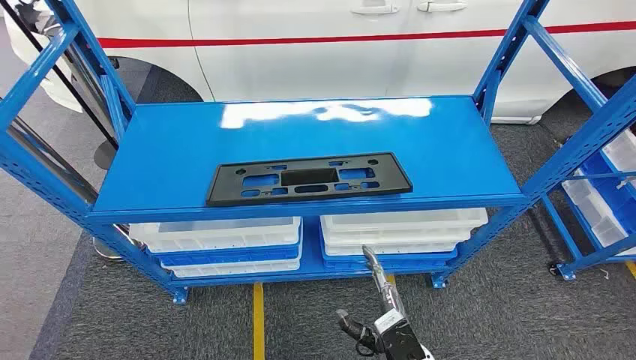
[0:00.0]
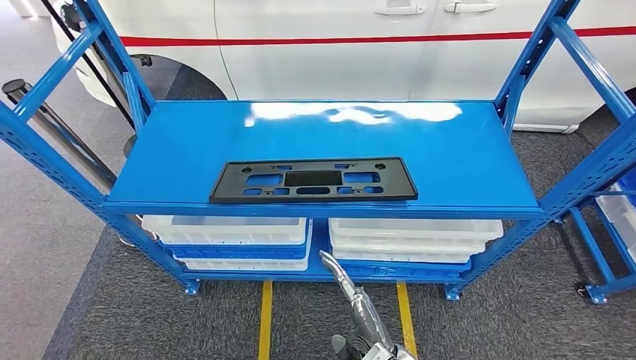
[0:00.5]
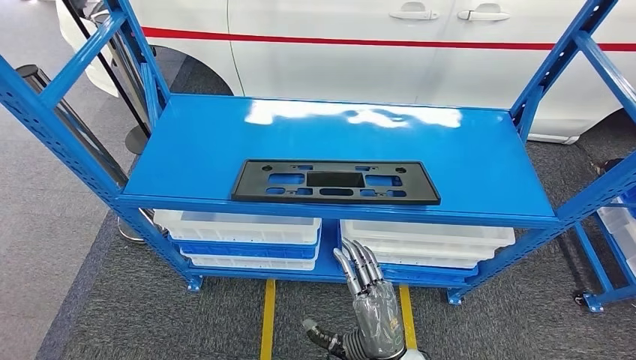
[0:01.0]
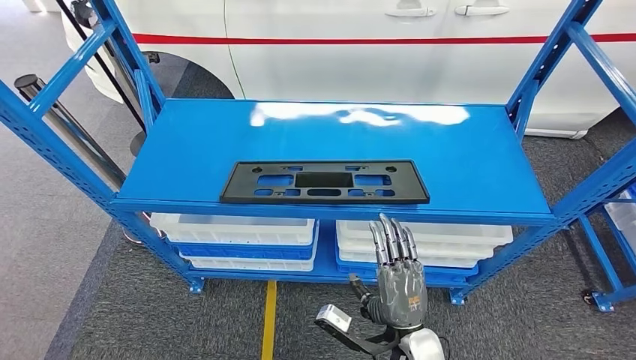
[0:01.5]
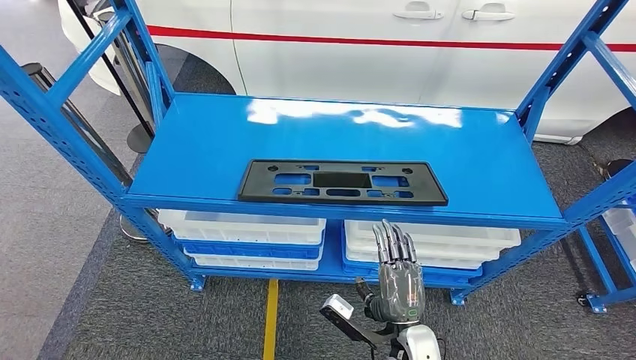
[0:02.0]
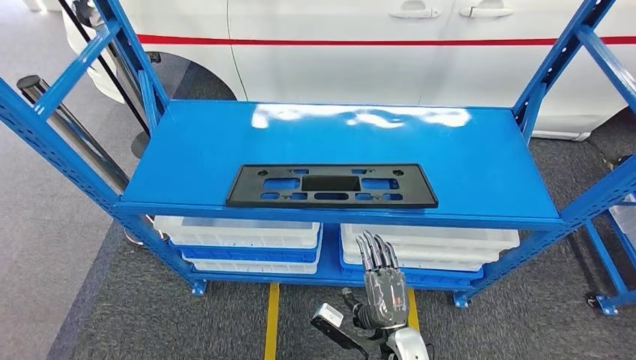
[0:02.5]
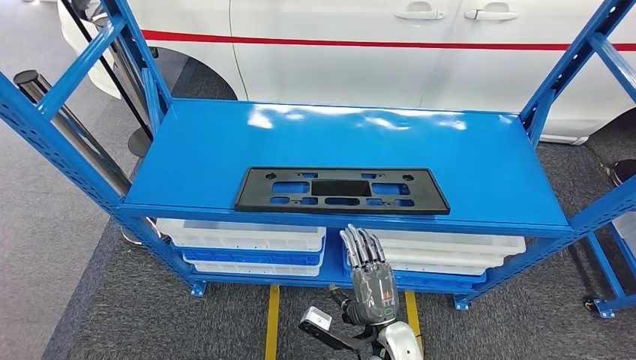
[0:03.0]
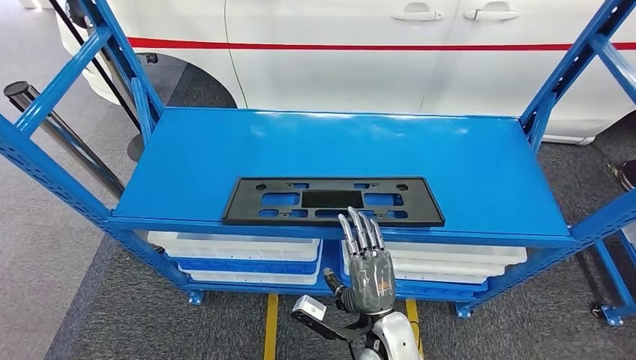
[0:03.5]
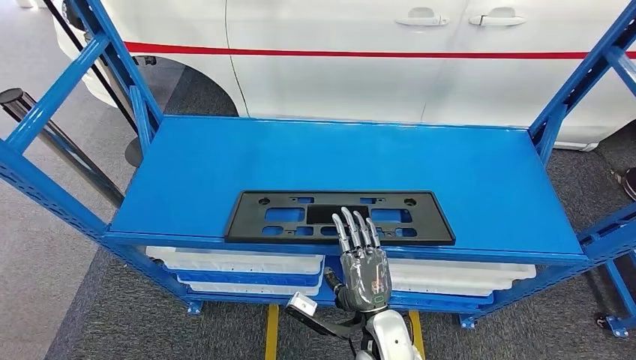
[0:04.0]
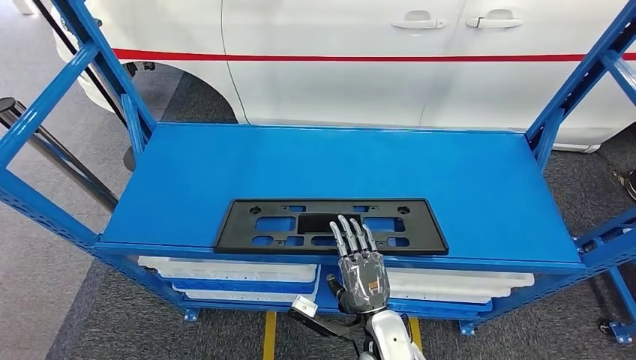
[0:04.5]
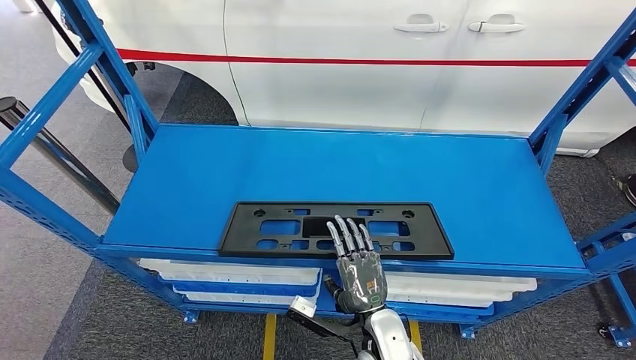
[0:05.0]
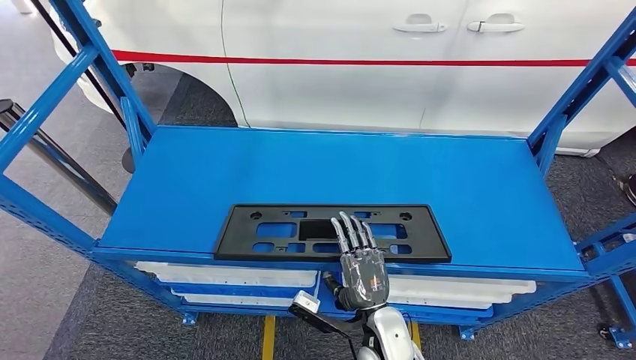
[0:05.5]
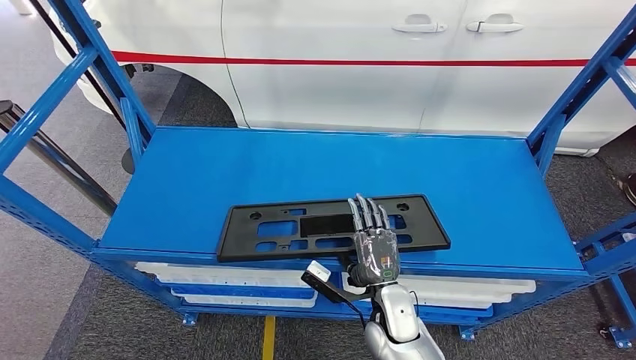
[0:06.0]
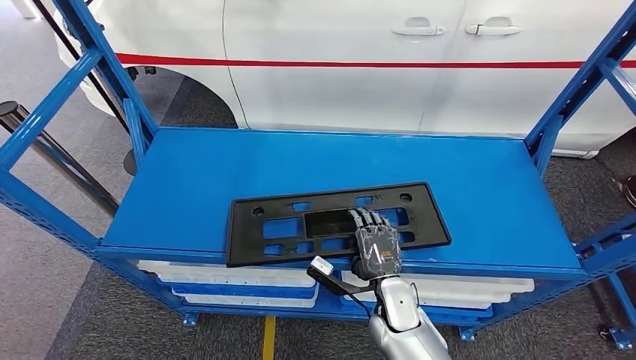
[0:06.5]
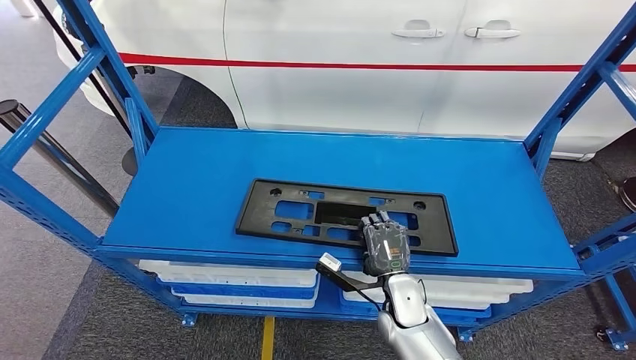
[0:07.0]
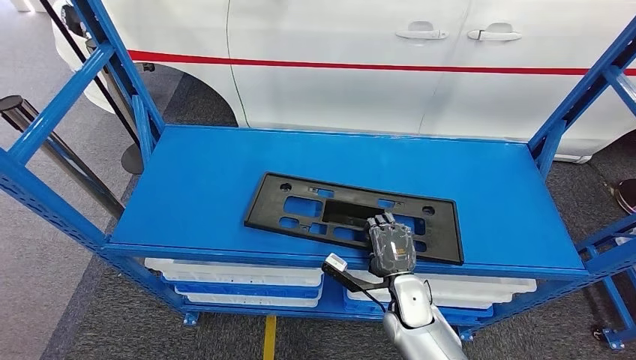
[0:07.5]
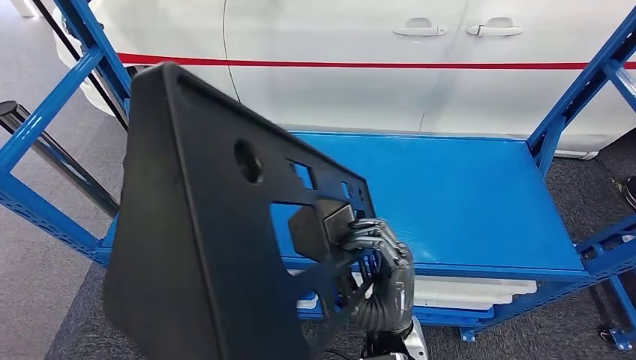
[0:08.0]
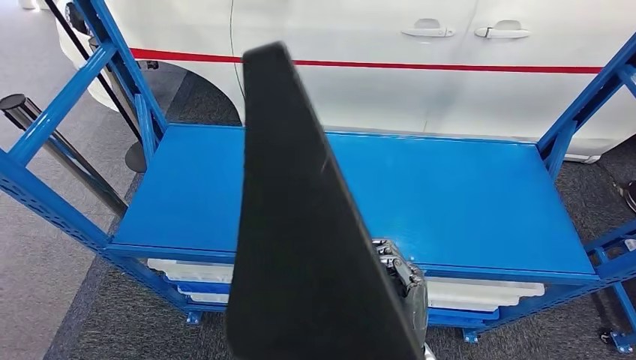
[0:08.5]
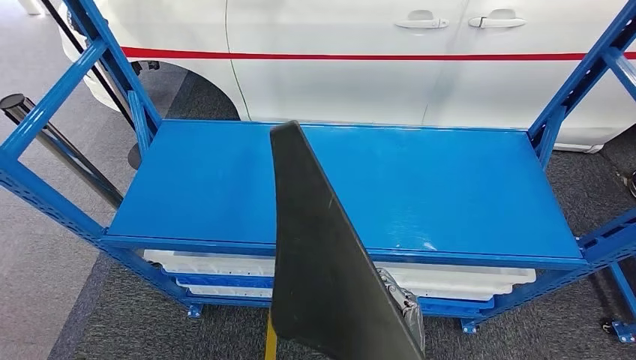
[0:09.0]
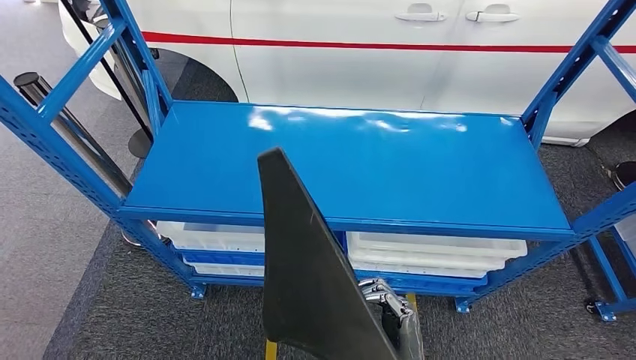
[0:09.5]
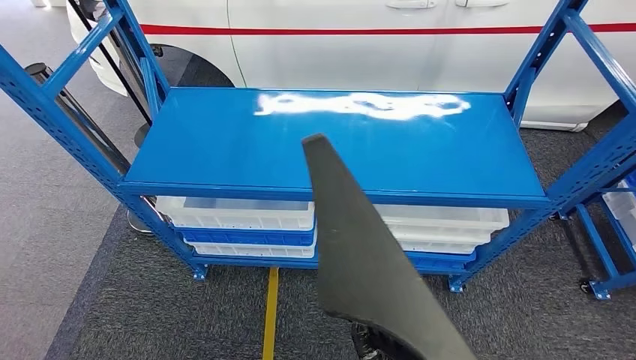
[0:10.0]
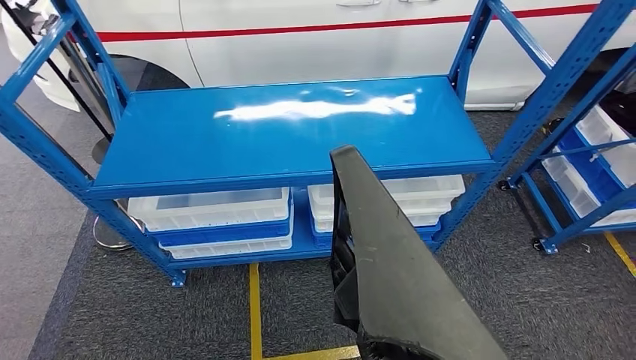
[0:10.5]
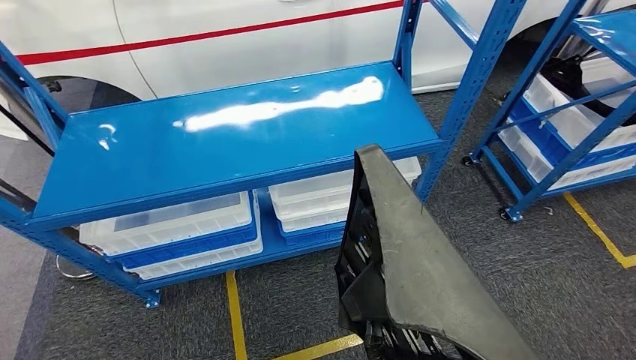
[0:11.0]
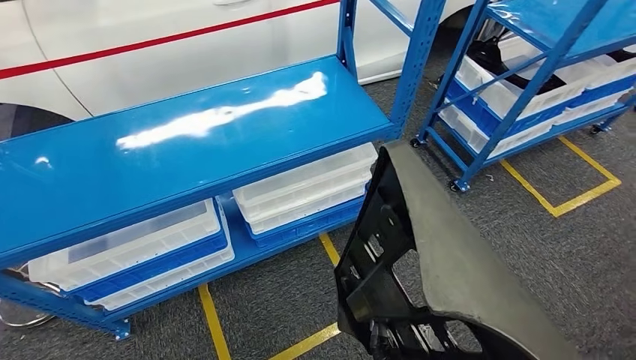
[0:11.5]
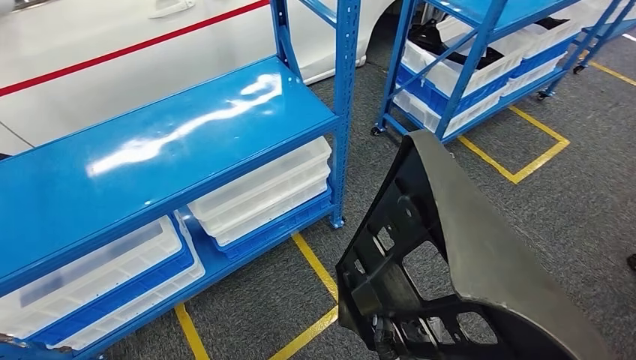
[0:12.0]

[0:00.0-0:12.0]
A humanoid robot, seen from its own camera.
Step, 0:00.0 to 0:11.0: Pick up the large material from the shelf.

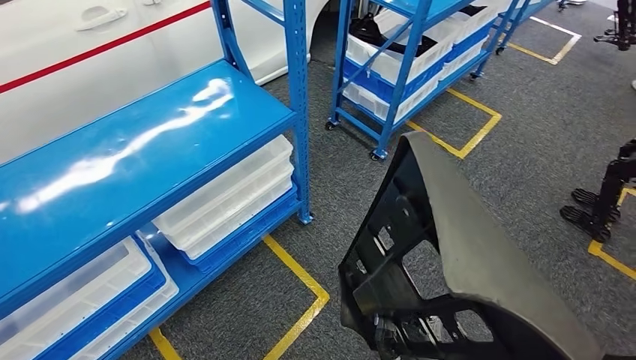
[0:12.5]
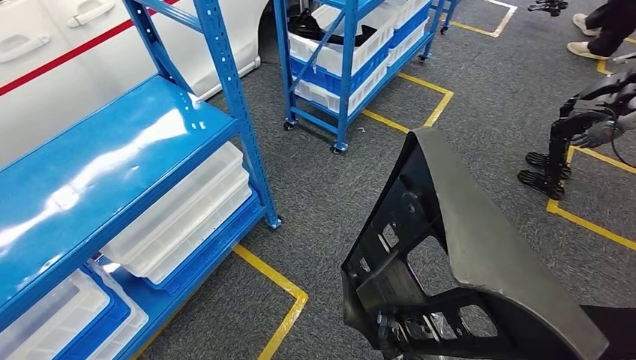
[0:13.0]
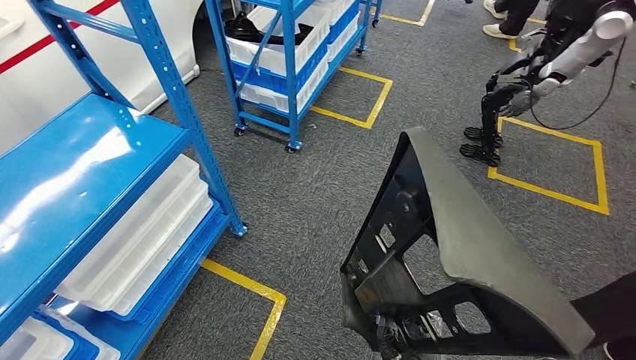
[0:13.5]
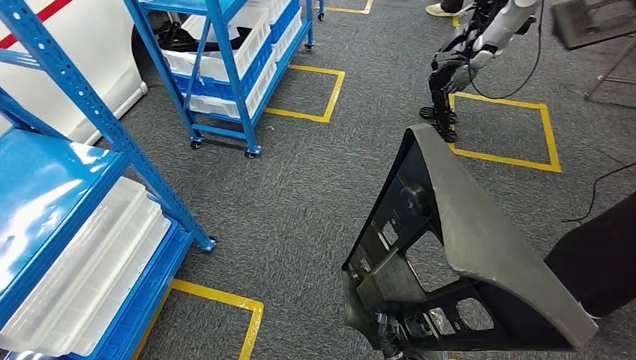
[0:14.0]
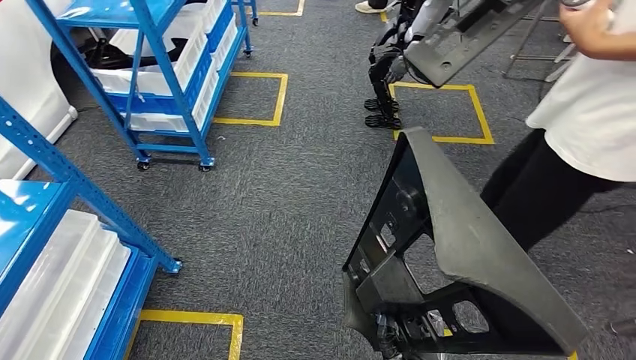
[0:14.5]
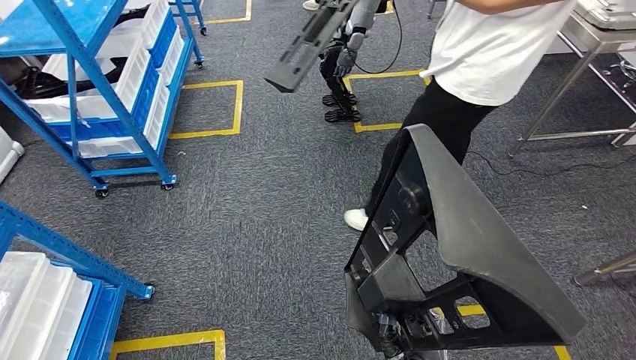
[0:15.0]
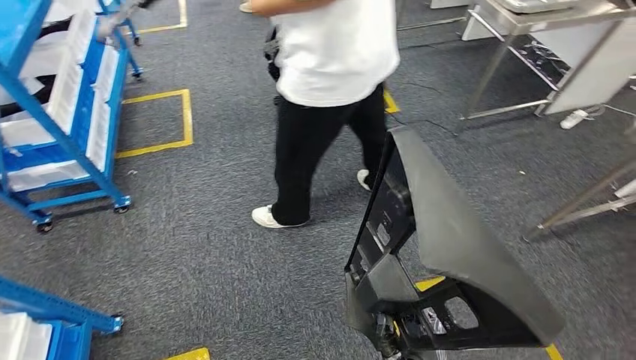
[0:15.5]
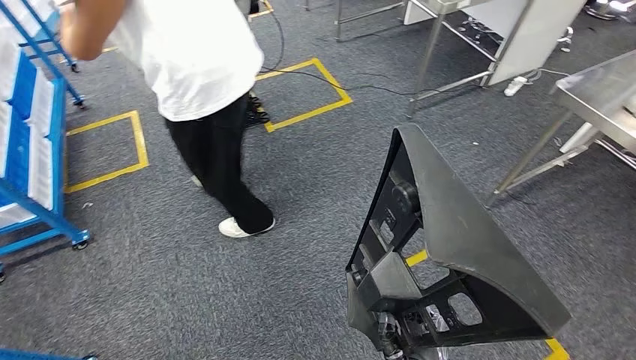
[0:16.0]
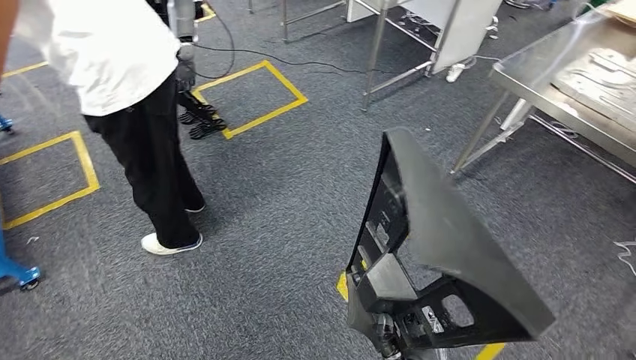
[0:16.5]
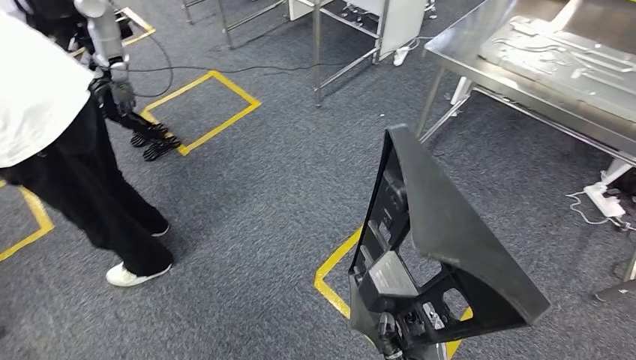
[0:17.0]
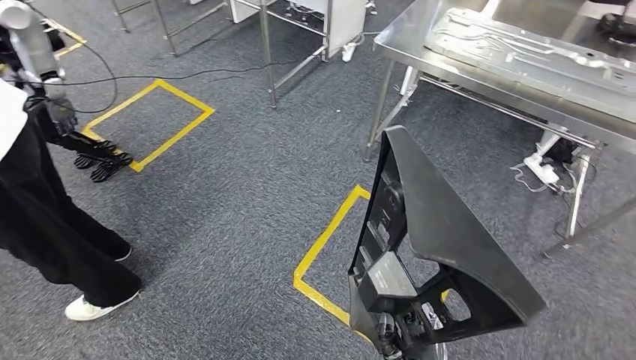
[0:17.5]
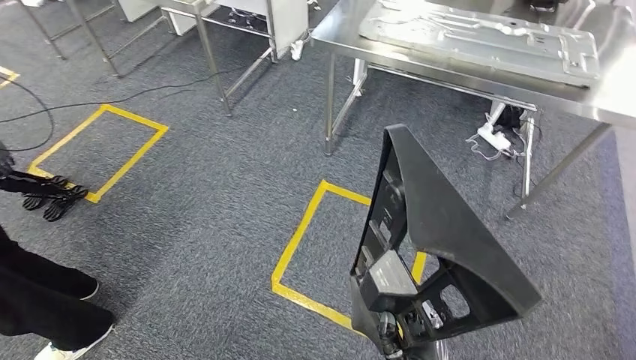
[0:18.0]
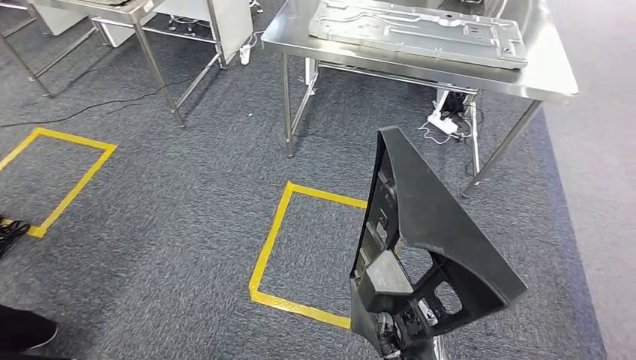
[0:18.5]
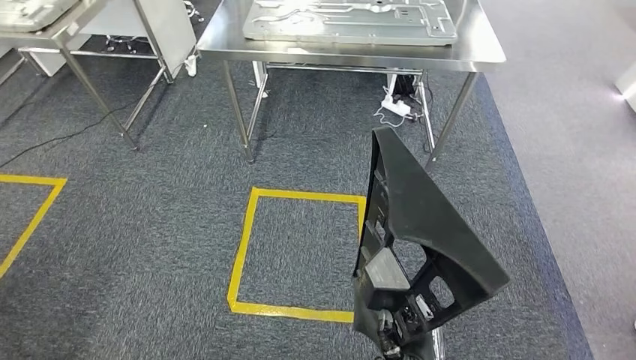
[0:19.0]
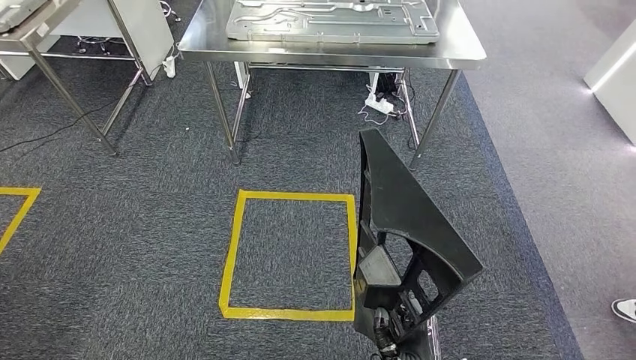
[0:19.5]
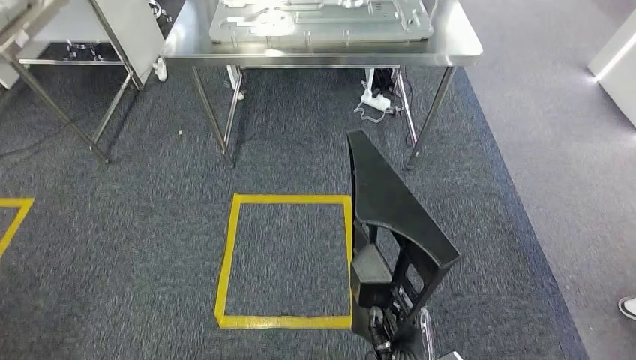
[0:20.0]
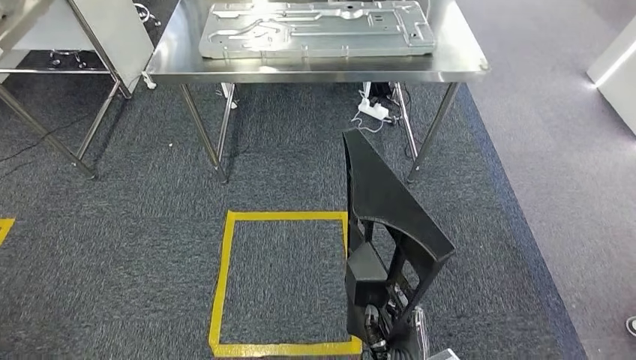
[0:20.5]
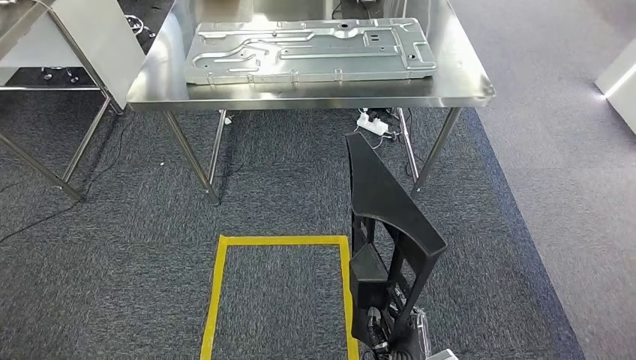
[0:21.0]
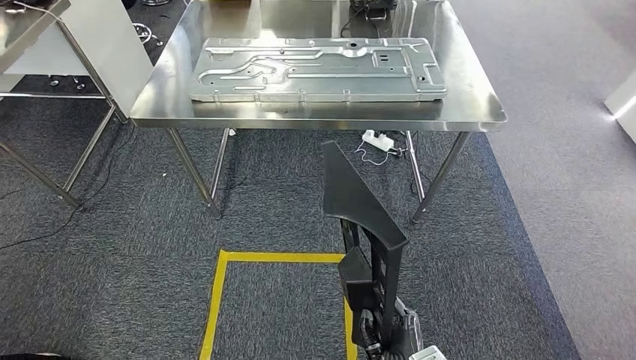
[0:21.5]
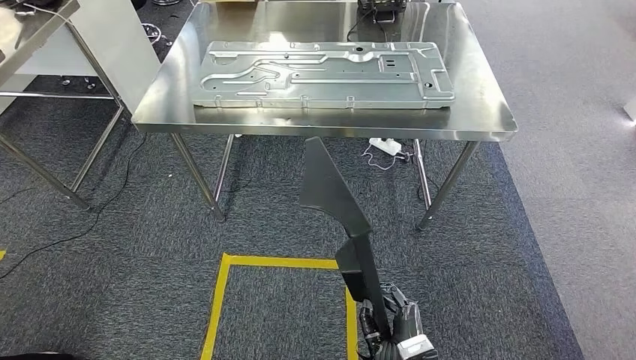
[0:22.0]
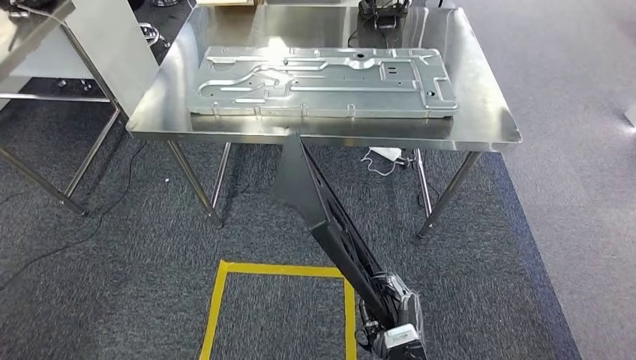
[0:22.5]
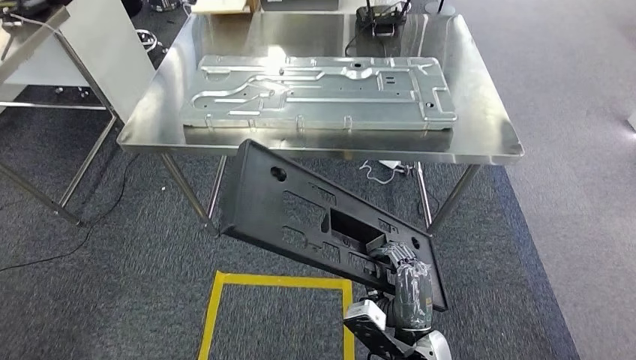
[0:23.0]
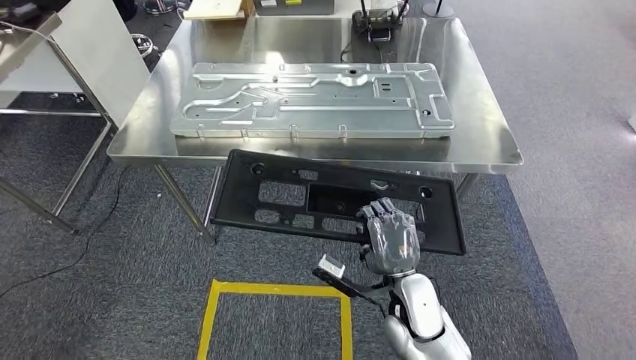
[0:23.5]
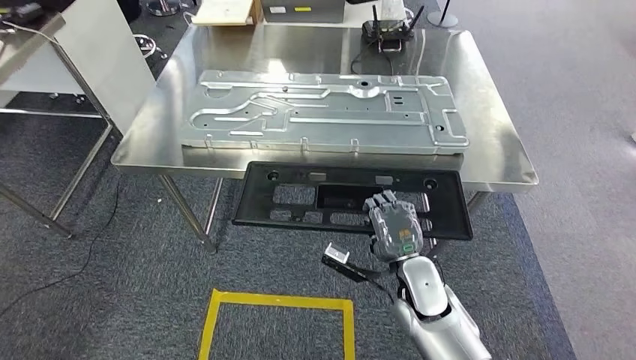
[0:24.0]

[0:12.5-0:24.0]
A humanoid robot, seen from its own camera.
Step, 0:12.5 to 0:24.0: Move the large material to the workbench.
